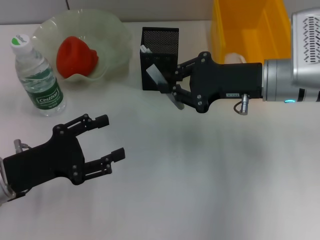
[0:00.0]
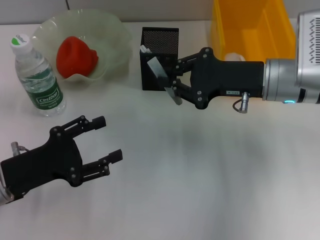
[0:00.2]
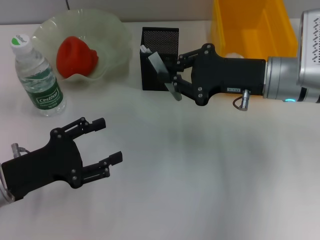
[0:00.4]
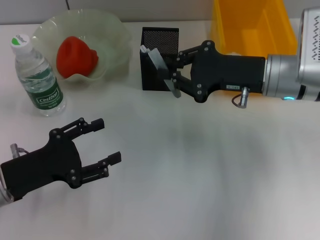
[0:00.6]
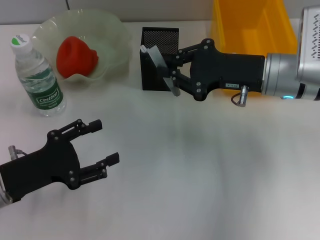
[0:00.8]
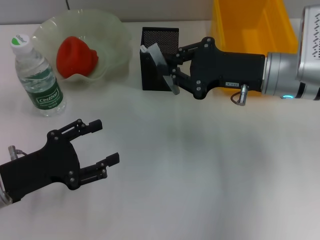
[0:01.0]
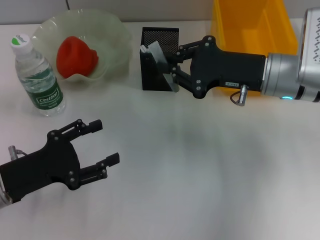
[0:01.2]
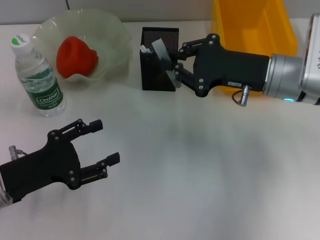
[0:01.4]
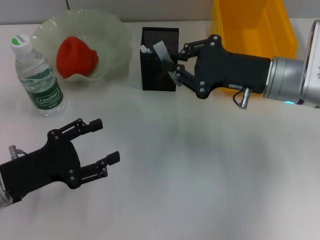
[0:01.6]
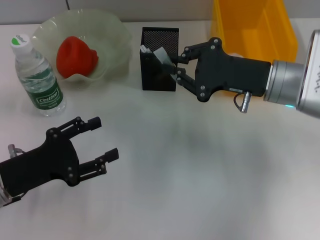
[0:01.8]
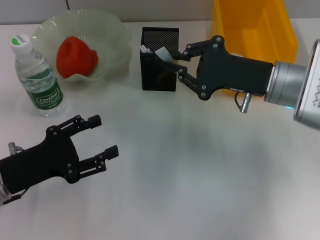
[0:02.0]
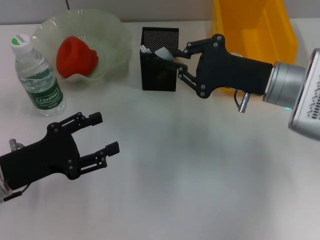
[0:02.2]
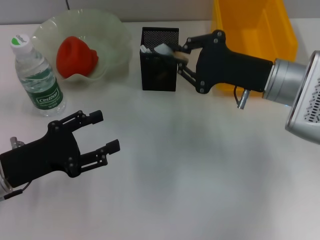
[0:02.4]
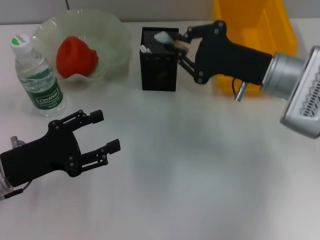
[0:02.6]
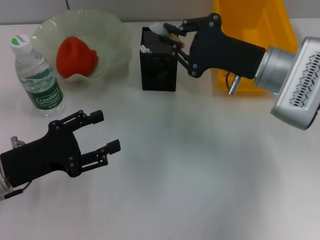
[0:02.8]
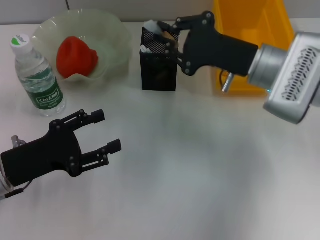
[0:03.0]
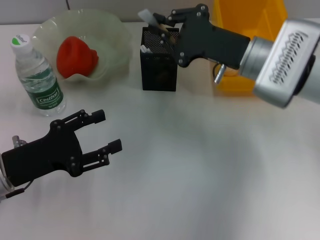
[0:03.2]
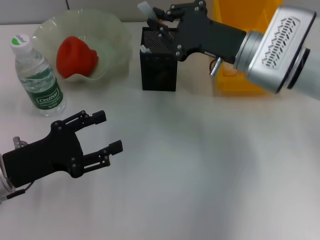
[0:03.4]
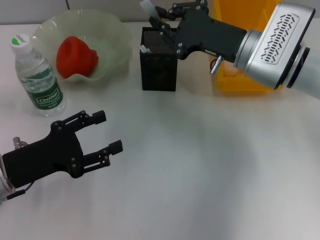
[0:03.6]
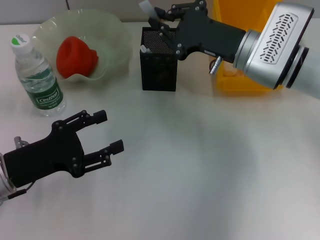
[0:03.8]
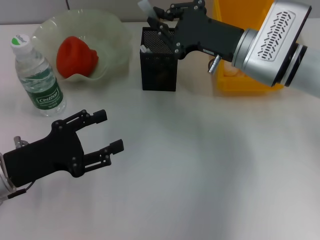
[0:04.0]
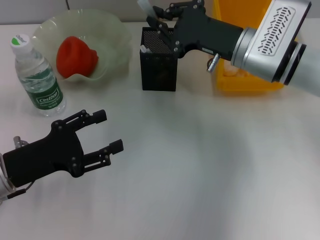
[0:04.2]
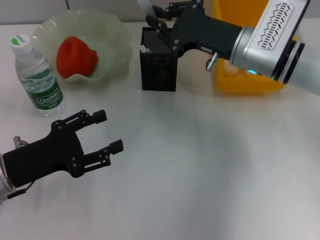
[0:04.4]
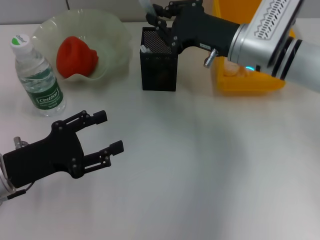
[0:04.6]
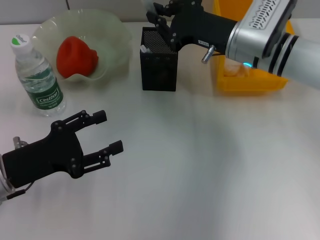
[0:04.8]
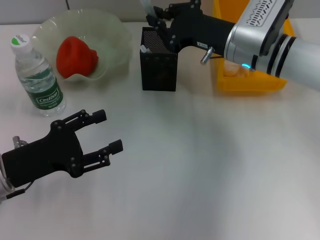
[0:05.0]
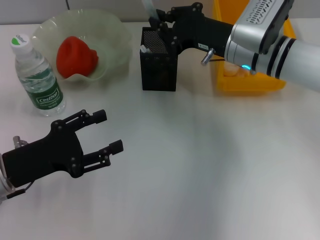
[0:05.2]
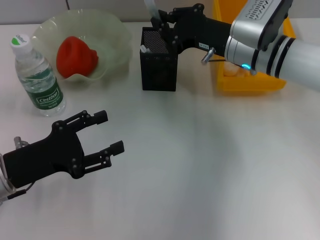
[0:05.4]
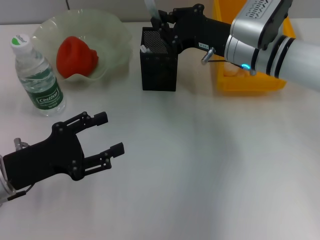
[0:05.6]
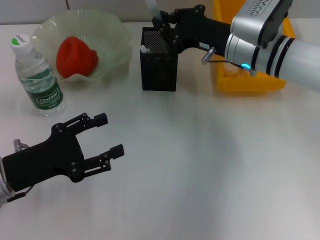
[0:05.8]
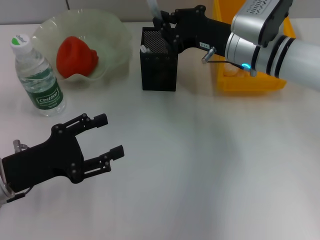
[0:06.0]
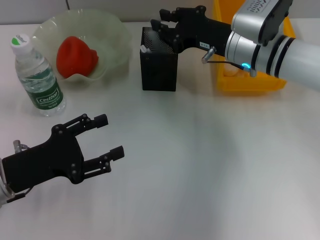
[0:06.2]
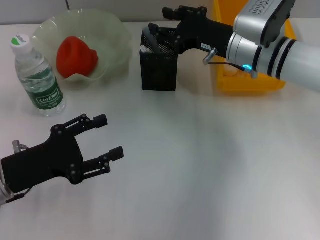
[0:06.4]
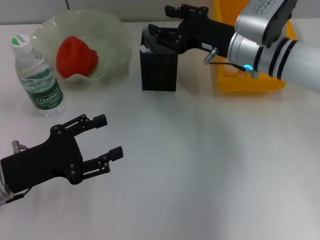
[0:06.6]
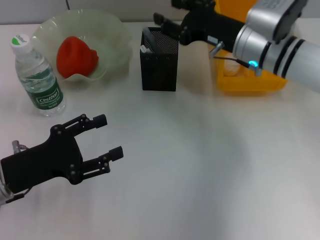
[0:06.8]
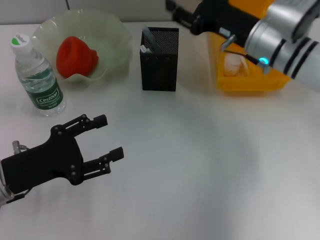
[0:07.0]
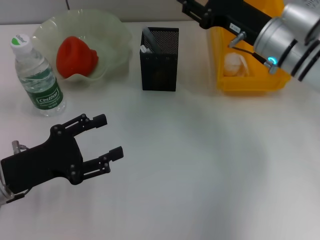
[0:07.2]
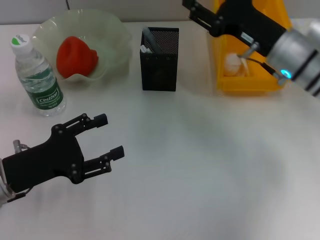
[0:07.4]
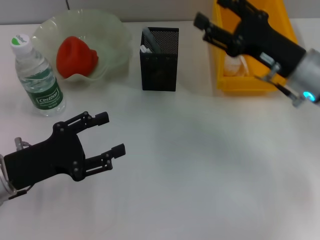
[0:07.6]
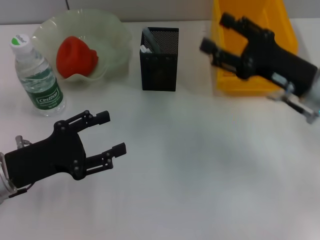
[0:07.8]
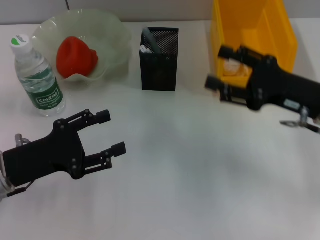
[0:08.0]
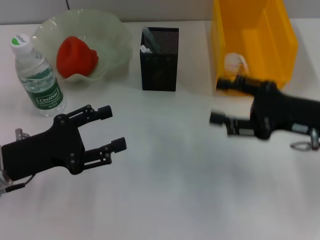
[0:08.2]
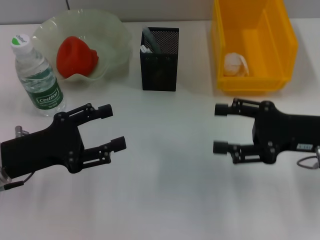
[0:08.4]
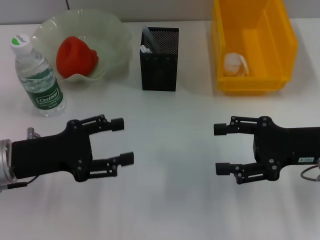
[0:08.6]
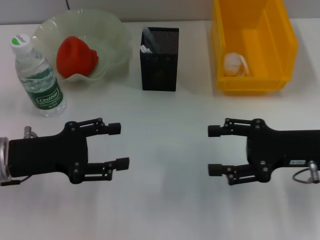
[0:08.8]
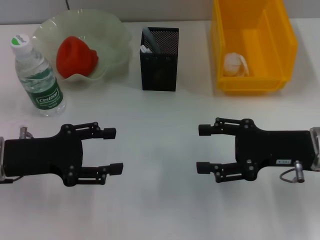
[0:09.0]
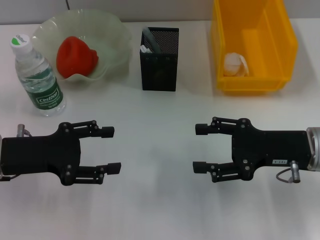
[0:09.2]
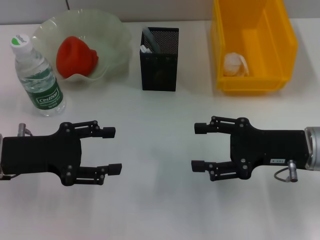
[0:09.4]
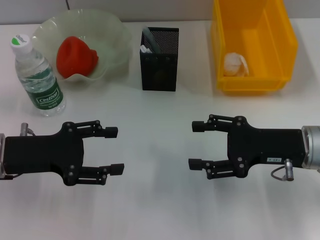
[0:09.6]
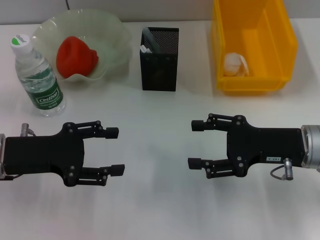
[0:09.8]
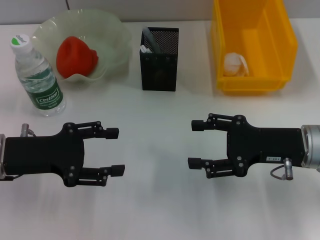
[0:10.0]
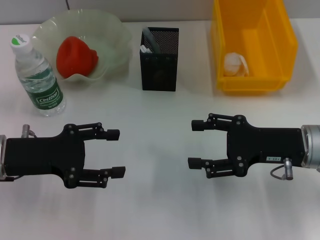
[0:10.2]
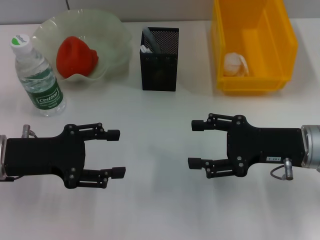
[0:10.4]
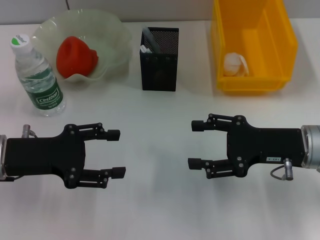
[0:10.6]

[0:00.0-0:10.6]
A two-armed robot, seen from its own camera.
Step, 0:00.0 to 0:06.4: Place the gray glue into the pen holder with the right hand.
0:00.0 to 0:01.6: The grippers make only small movements.
0:03.0 to 0:04.6: The grippers move only a little.
0:04.6 to 0:06.0: The grippers stay close to where they were, moving slightly.
0:06.0 to 0:07.6: The right gripper is displaced to the right and backward by approximately 10 cm, and opens.
0:07.6 to 0:09.0: The right gripper goes about 5 cm backward.
0:09.0 to 0:10.6: Both grippers stay about where they are.
